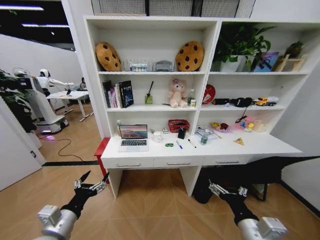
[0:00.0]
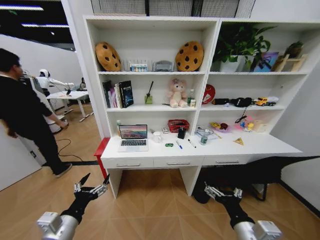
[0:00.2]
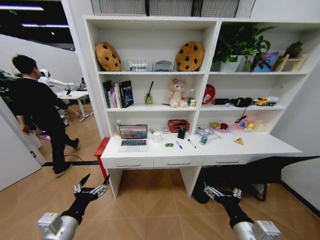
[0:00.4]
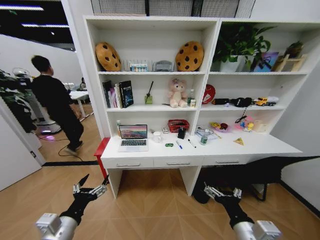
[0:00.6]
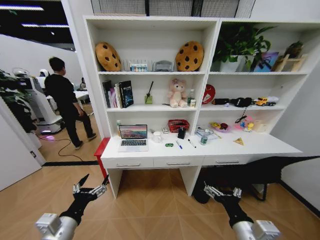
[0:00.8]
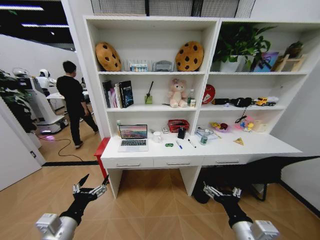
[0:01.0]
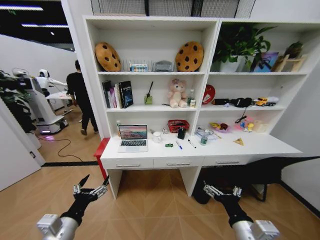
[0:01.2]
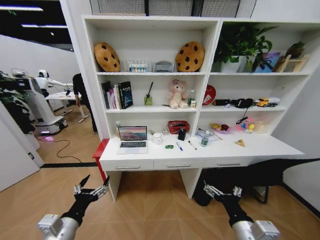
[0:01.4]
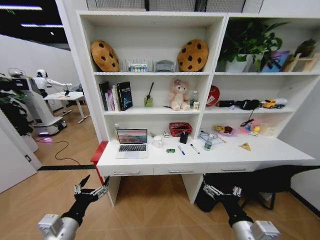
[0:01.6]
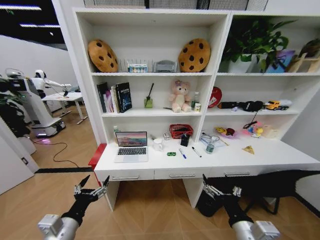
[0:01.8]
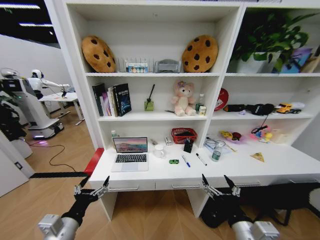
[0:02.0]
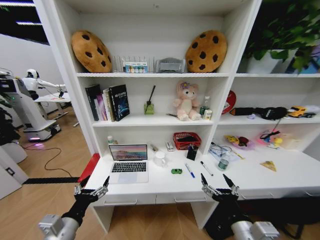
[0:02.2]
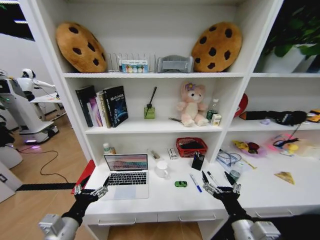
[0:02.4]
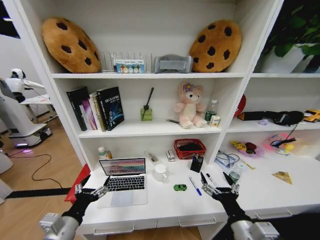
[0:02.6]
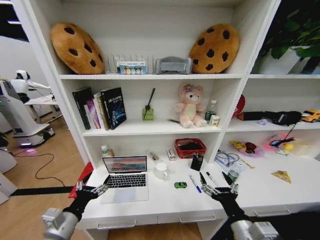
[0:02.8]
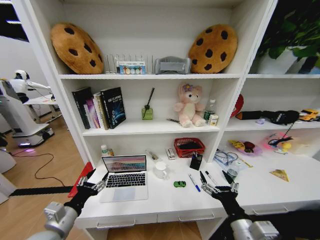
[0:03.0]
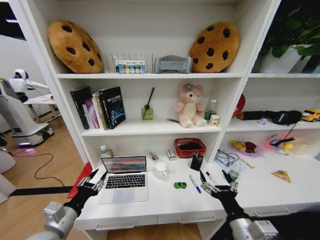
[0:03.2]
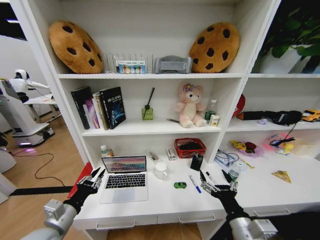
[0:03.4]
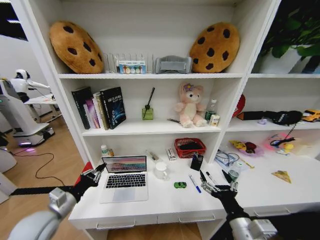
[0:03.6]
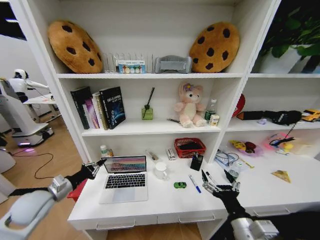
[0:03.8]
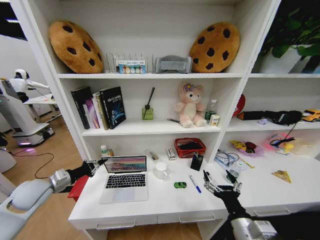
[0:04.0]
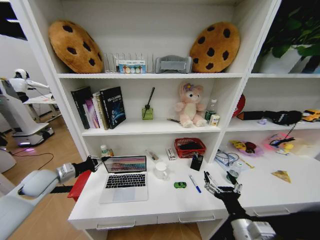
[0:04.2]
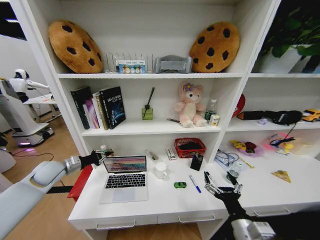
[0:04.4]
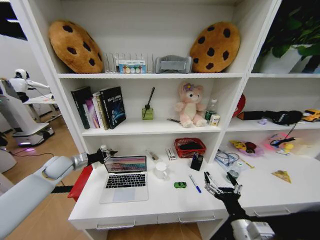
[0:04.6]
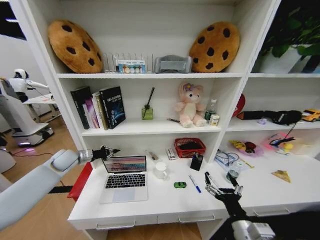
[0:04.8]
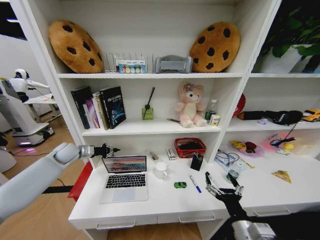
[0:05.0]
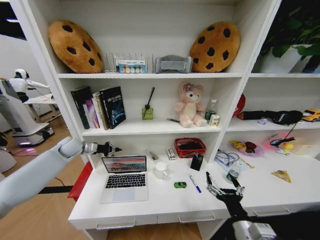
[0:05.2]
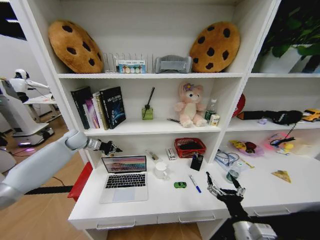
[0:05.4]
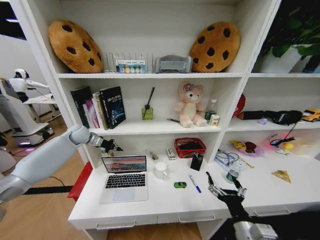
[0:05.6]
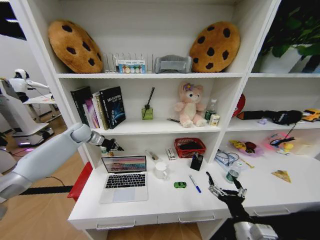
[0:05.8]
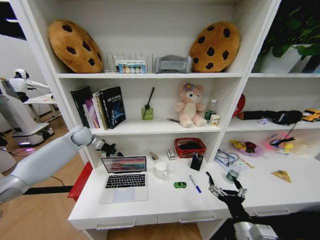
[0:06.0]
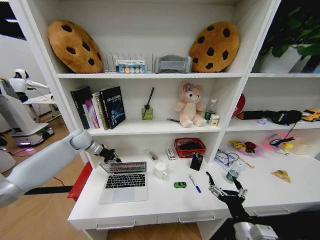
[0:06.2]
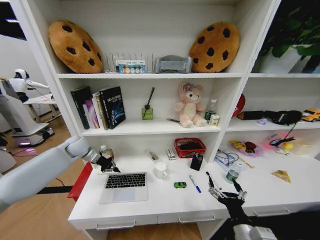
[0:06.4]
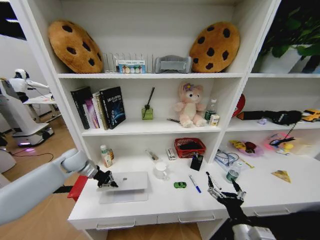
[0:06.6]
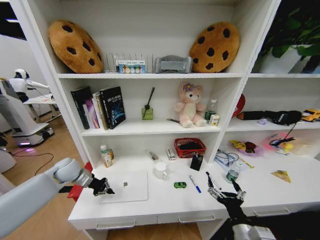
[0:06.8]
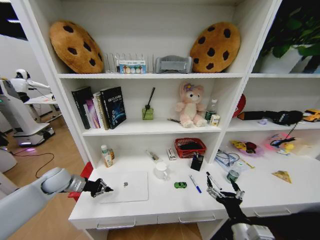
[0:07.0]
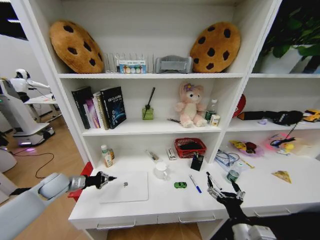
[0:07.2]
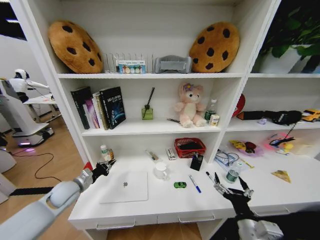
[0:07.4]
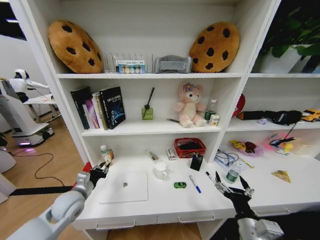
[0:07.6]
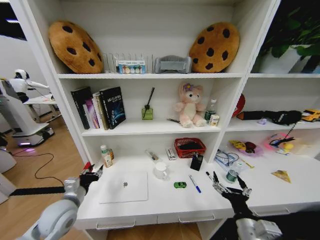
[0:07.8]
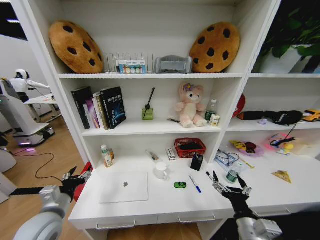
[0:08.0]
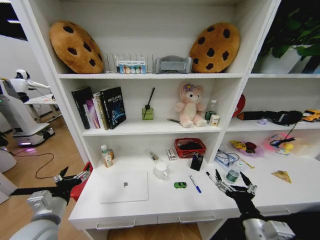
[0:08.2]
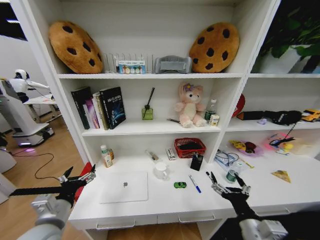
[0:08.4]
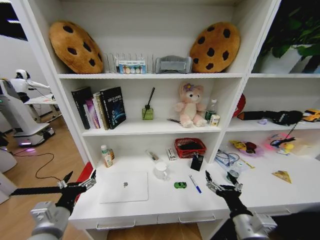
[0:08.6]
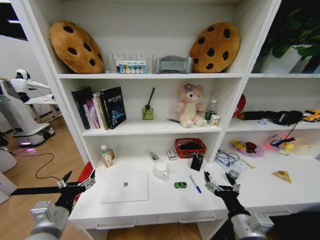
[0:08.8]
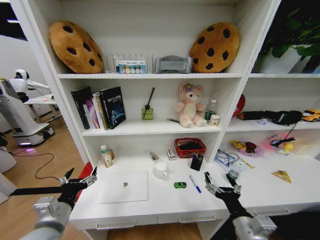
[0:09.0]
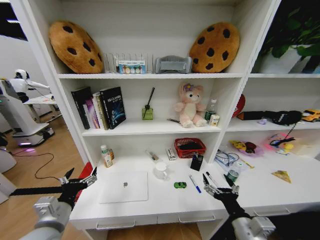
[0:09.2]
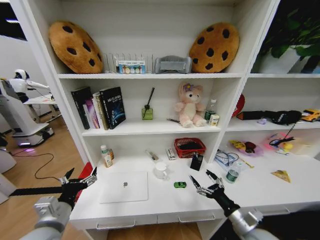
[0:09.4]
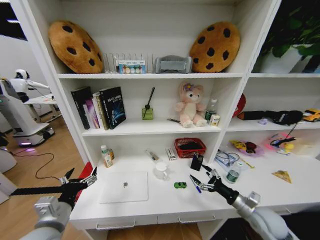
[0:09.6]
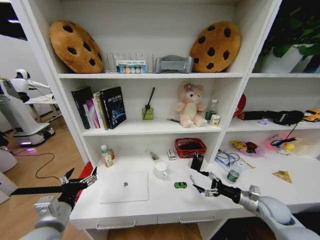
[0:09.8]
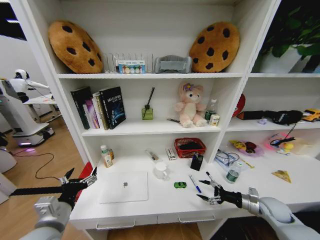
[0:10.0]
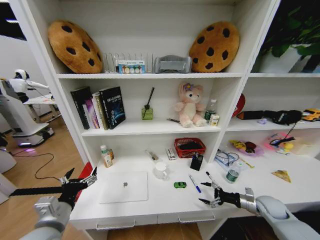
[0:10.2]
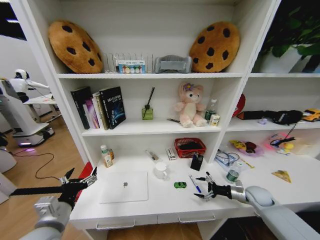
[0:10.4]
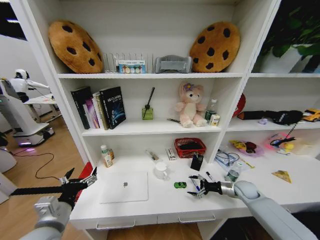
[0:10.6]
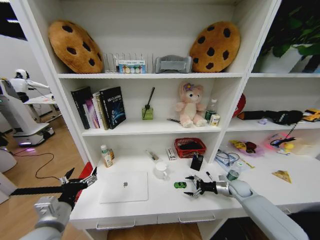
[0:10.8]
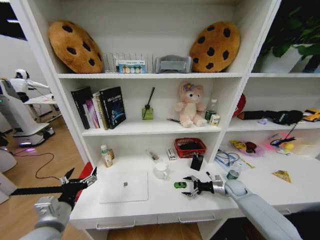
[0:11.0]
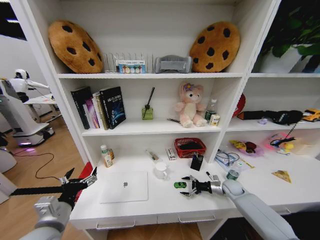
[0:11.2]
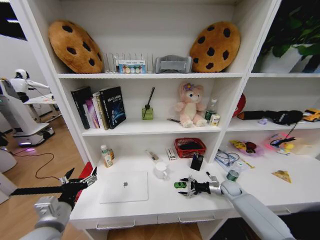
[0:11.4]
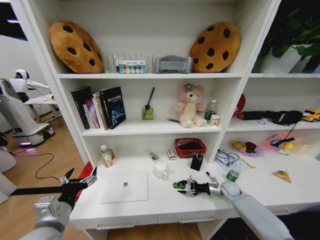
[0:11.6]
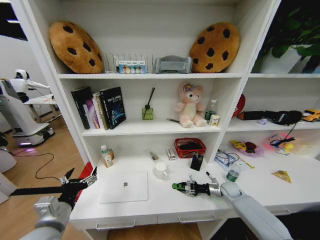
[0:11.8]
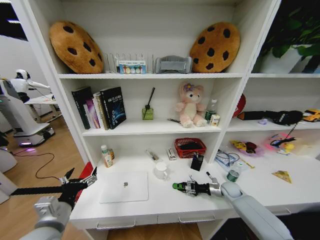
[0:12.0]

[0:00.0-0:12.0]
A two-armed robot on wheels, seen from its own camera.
Task of the whole recording: Organize the objects on the table.
0:03.0 to 0:04.4: The left gripper heads forward and to the left, covering about 25 cm, and closes up.
0:04.4 to 0:06.0: The left gripper shifts approximately 20 cm forward and upward.
0:06.0 to 0:07.6: The left gripper goes some 30 cm backward and downward.
0:07.6 to 0:09.0: The left gripper shifts approximately 15 cm backward and upward, and opens up.
0:09.0 to 0:10.4: The right gripper heads to the right, forward and downward, covering about 35 cm.
0:10.4 to 0:12.0: The right gripper moves downward, to the left and forward, about 10 cm, and closes its fingers.

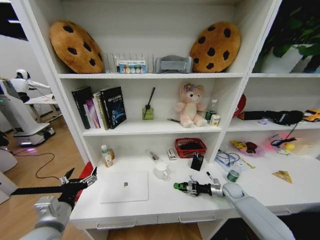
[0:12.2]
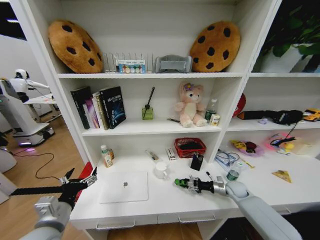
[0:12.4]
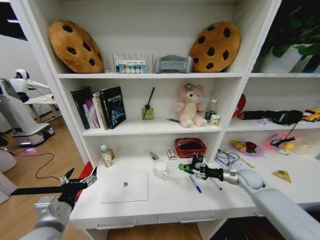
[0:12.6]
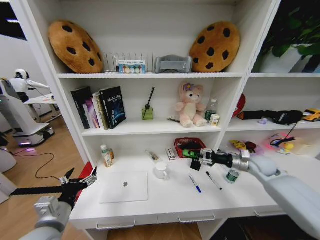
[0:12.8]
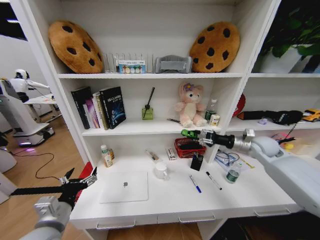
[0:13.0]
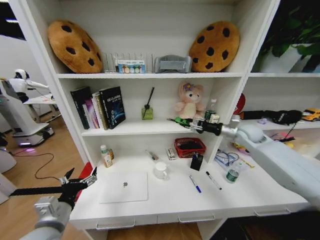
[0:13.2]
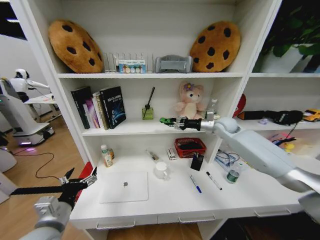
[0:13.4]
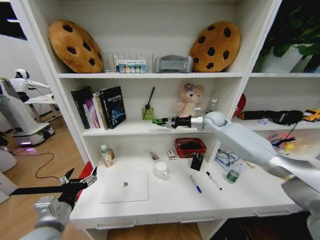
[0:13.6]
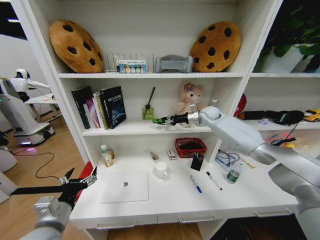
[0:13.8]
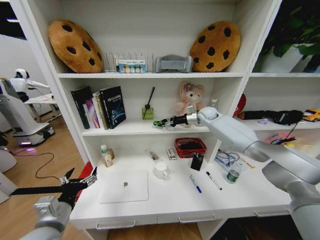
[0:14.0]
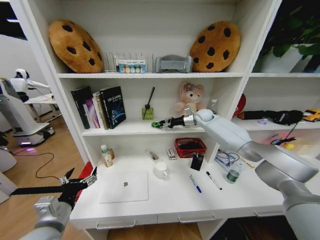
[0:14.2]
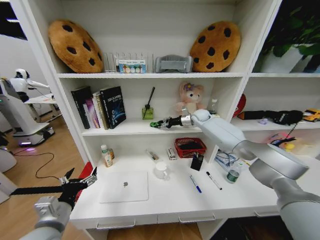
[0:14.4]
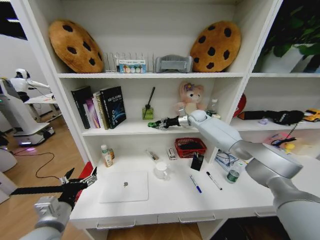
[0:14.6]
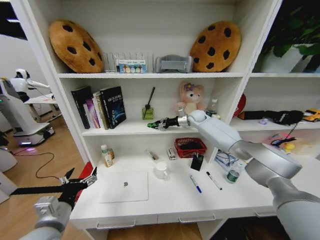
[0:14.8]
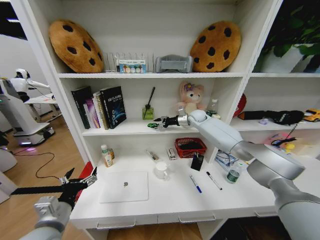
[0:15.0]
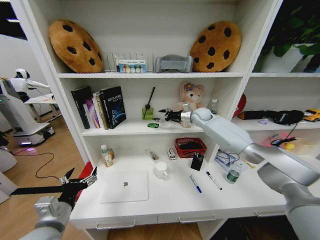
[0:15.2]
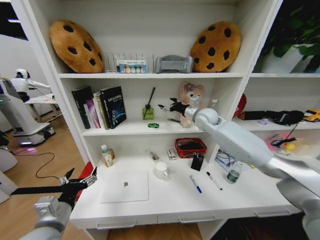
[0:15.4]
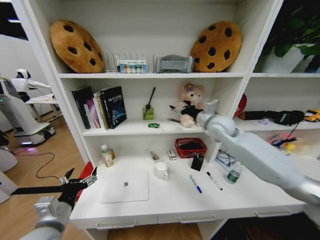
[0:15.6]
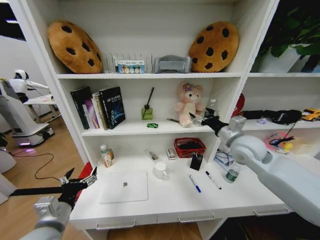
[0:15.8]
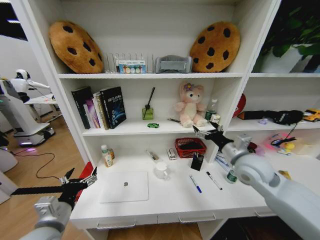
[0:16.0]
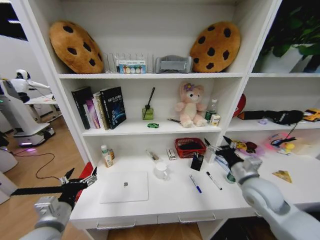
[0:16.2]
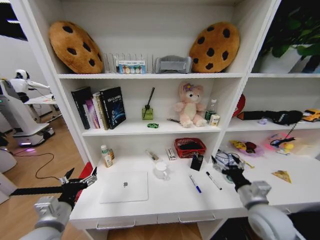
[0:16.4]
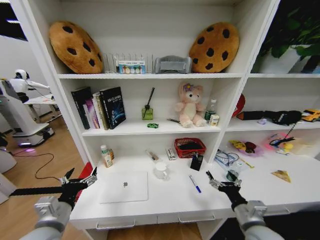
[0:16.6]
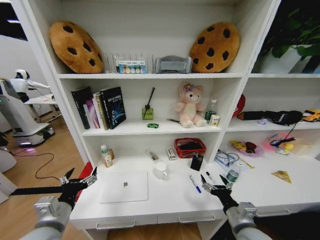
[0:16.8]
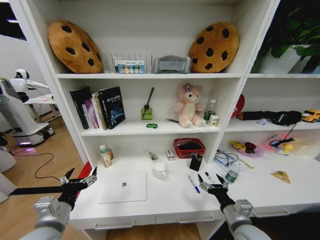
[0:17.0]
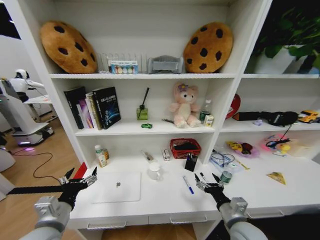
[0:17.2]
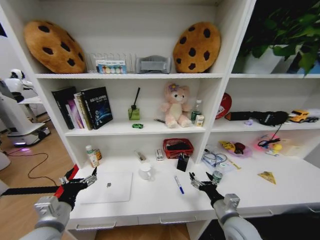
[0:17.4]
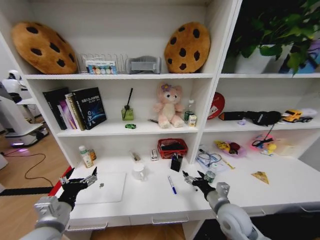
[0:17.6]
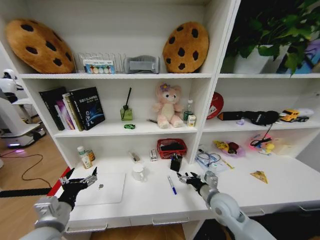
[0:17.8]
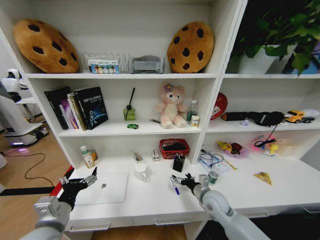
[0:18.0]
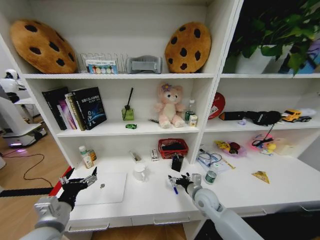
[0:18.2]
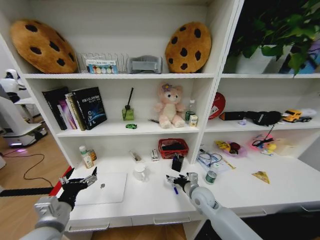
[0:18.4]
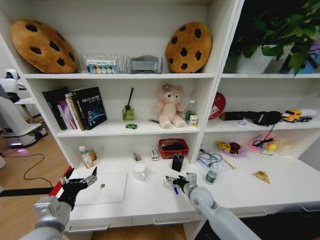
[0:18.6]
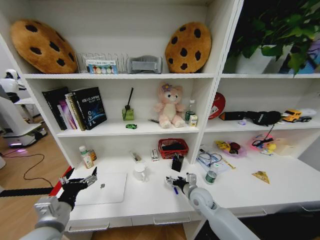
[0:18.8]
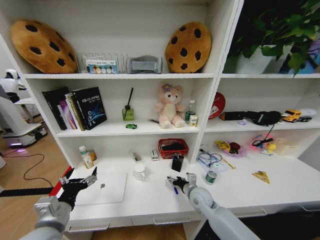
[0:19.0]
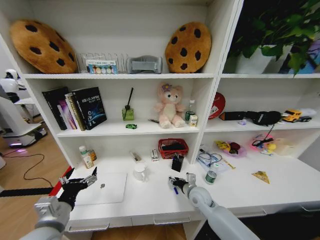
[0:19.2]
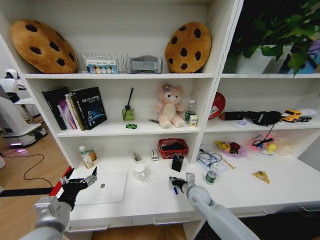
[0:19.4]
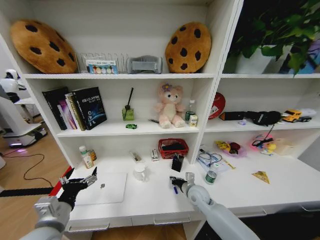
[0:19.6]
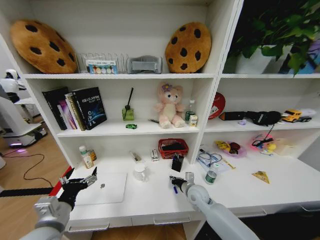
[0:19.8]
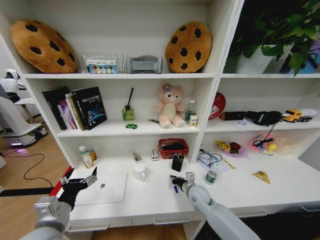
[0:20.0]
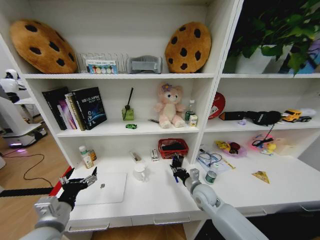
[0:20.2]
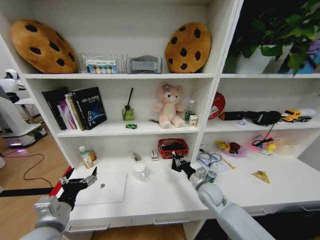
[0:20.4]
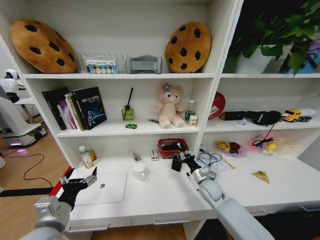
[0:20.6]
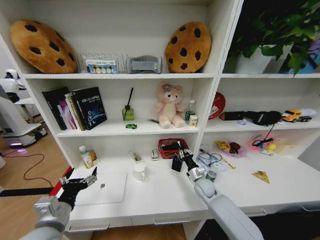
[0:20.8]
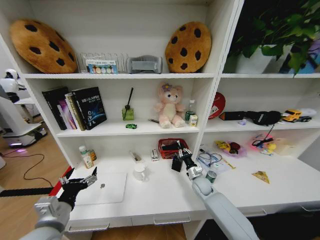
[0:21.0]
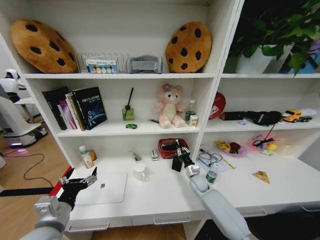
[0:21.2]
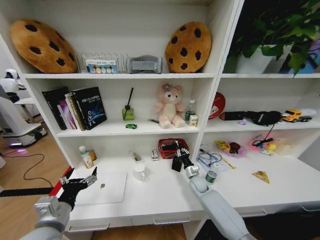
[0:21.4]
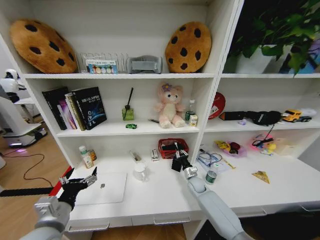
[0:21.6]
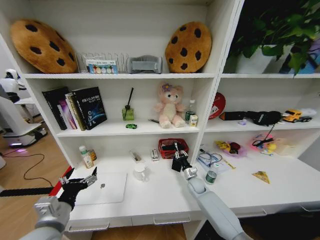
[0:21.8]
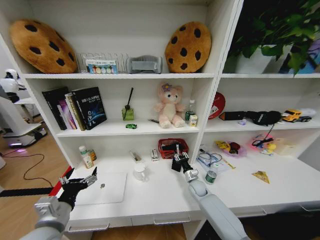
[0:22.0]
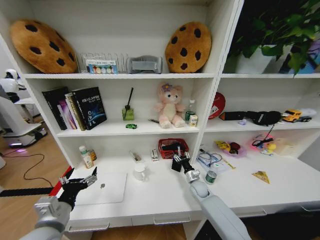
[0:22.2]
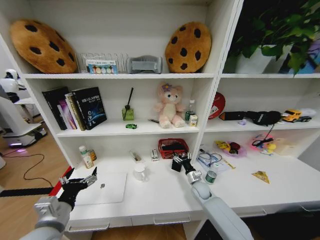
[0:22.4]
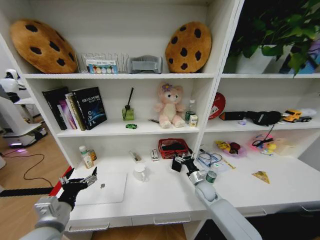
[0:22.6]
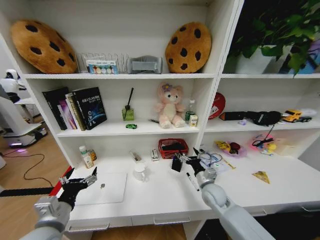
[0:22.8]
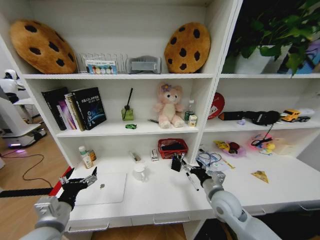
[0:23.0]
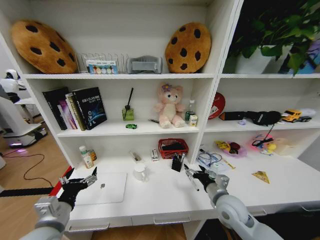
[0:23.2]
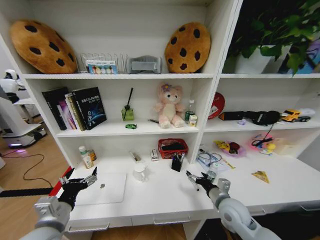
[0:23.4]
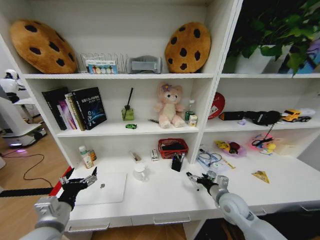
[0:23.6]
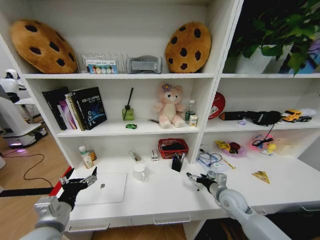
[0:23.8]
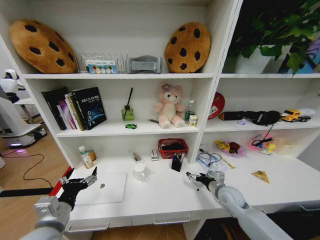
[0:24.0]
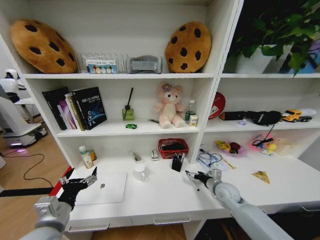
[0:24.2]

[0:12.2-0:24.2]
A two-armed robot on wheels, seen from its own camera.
Task of the whole recording: Organize the objects on the table.
0:12.2 to 0:13.8: The right gripper is displaced upward and forward by approximately 40 cm.
0:13.8 to 0:15.2: The right gripper opens.
0:15.2 to 0:16.6: The right gripper travels backward and downward by about 50 cm.
0:16.6 to 0:18.2: The right gripper heads forward and to the left, covering about 15 cm.
0:18.2 to 0:19.8: The right gripper closes.
0:19.8 to 0:21.2: The right gripper shifts roughly 10 cm forward.
0:21.2 to 0:22.6: The right gripper opens.
0:22.6 to 0:24.2: The right gripper is displaced to the right and upward by approximately 10 cm.
